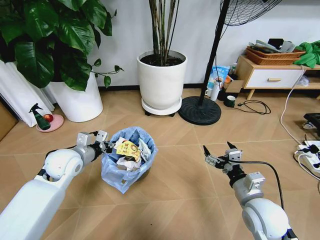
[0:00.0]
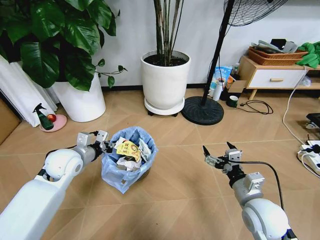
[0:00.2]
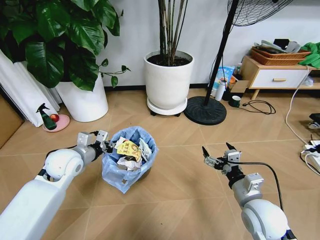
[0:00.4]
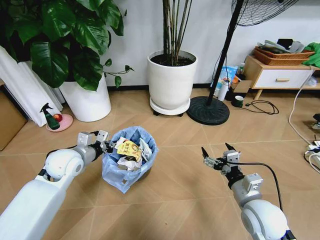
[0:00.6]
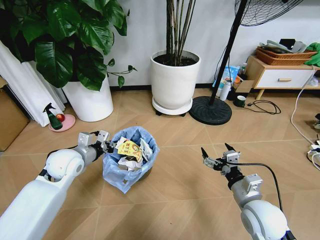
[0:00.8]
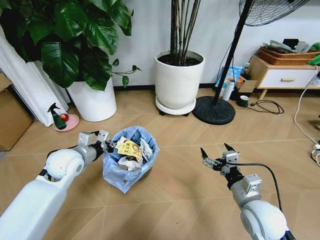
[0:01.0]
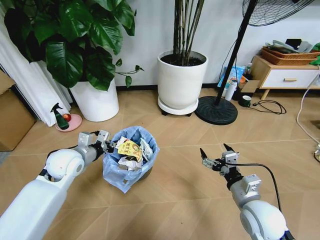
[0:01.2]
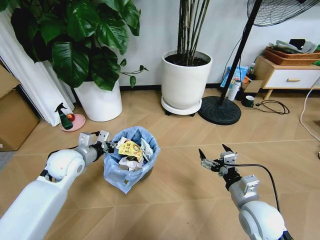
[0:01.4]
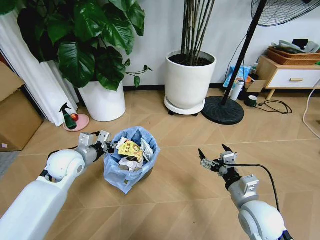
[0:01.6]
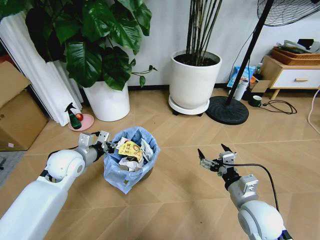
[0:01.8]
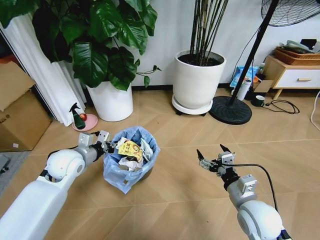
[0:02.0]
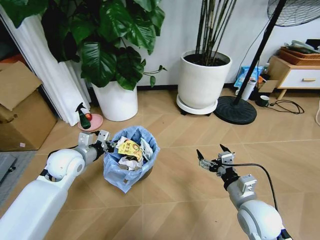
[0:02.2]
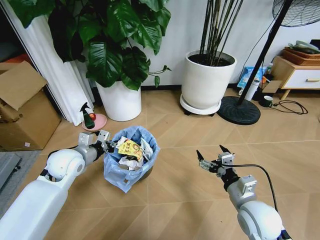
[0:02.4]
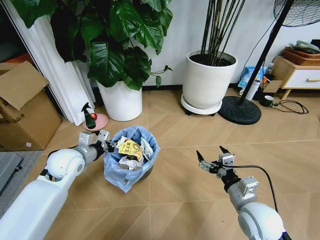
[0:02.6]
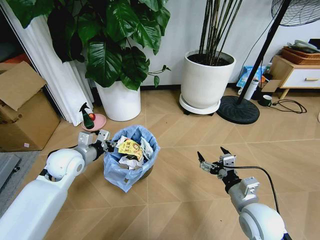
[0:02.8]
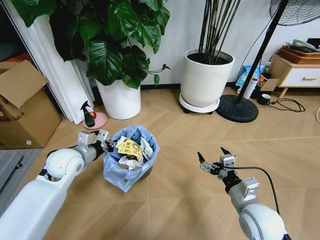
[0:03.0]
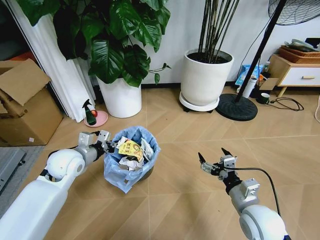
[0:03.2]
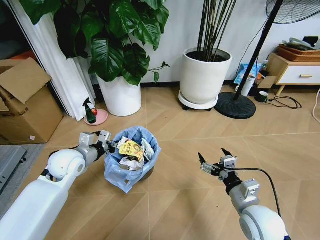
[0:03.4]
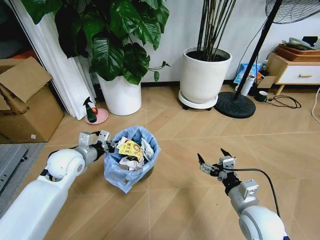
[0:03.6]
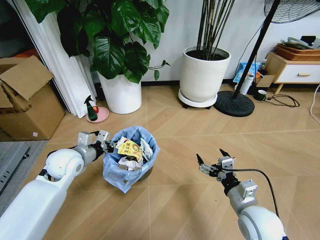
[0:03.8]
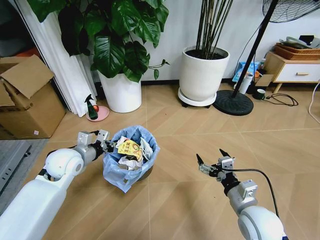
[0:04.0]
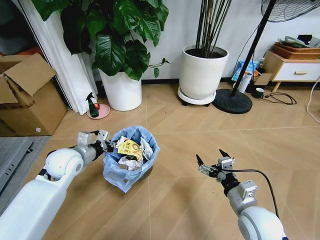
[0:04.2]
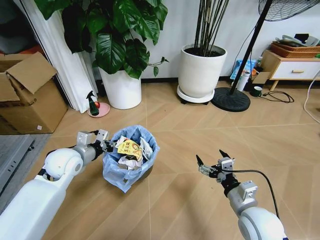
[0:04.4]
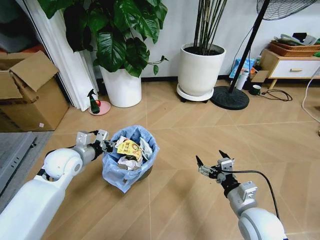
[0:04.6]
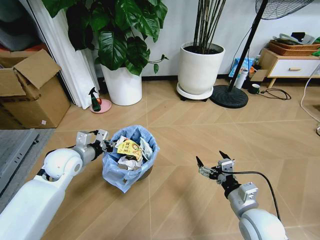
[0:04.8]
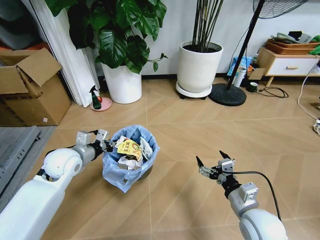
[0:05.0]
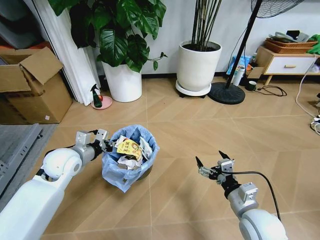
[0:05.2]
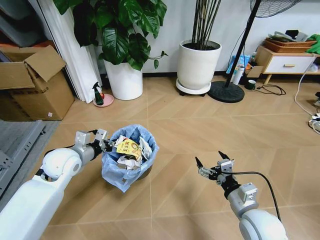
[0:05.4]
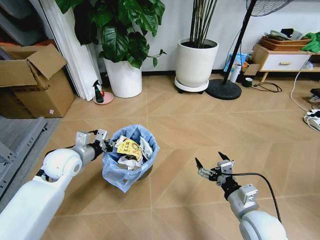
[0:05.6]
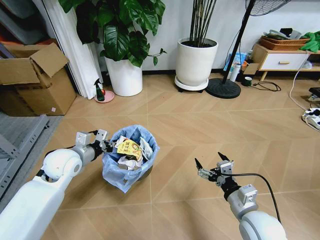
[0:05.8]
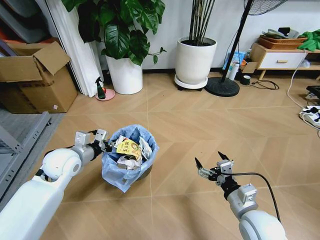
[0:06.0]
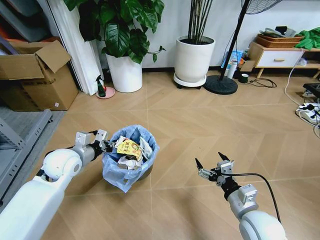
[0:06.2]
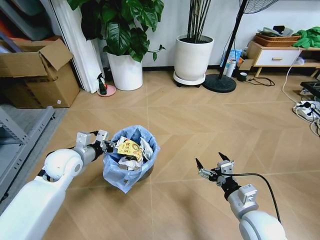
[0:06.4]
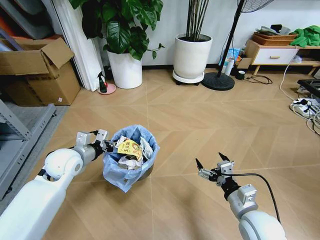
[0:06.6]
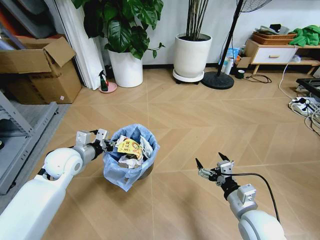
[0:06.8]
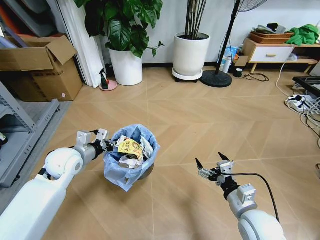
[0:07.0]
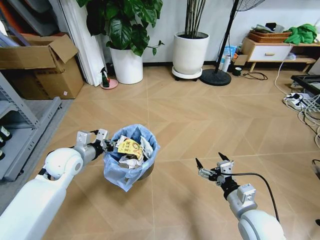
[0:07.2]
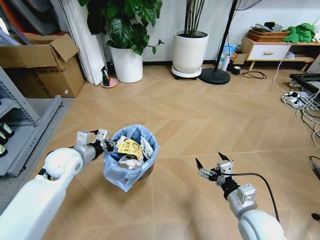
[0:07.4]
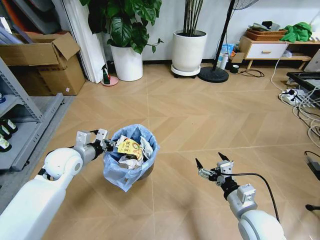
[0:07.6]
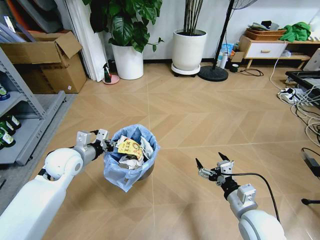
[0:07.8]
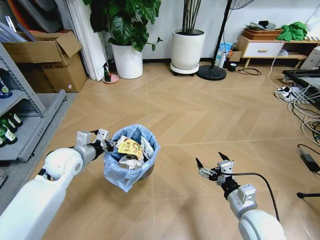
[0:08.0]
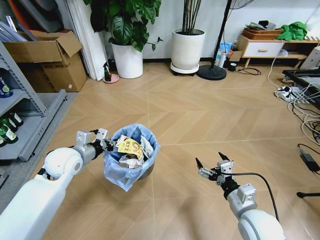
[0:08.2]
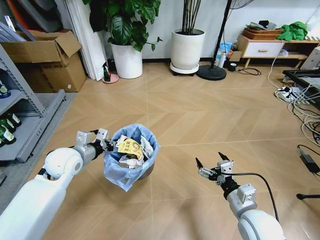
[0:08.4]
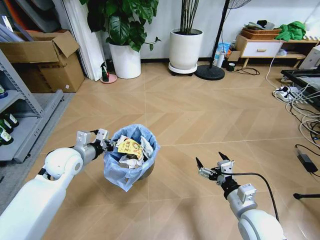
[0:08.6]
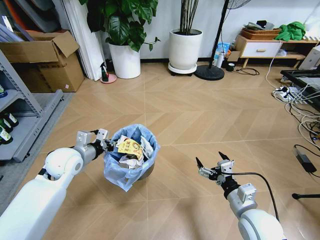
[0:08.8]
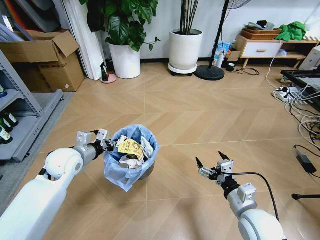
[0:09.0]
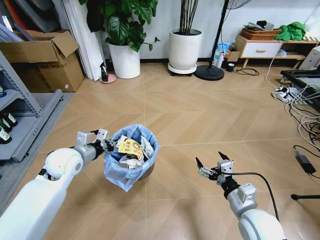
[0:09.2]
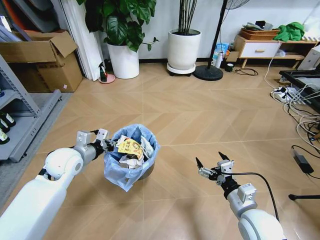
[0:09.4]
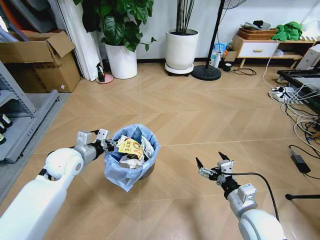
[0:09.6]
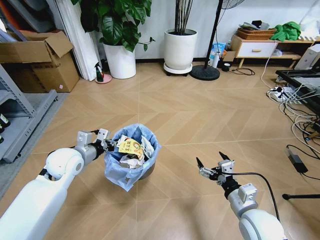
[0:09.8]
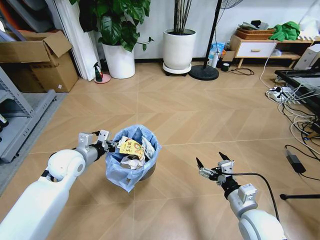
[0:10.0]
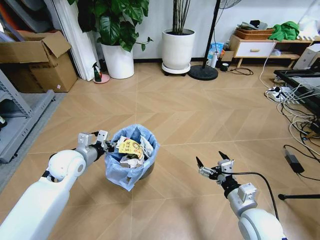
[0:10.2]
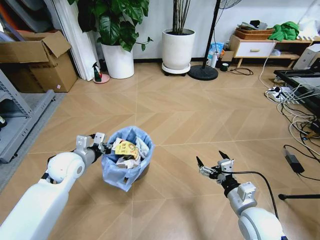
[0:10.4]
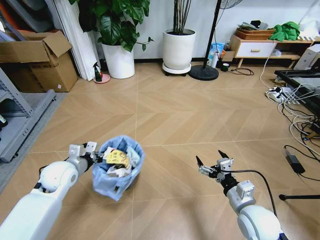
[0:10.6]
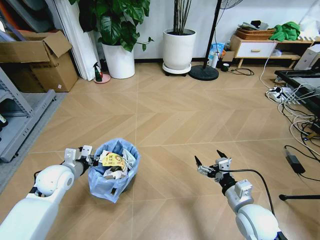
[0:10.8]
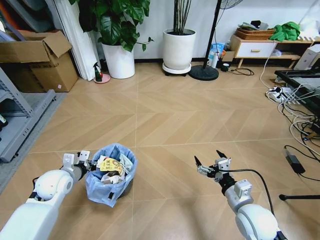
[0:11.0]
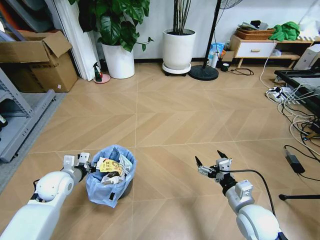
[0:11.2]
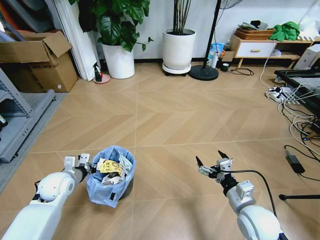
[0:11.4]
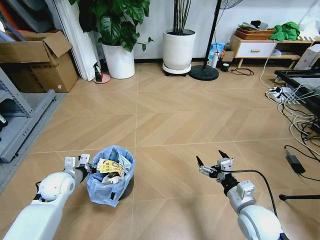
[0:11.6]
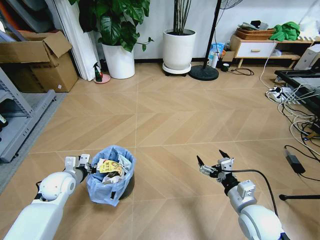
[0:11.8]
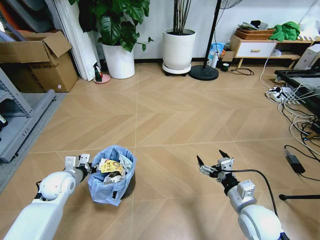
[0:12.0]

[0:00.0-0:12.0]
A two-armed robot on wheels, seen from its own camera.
Task of the whole recording: Pick up the trash bin and place the garbage on the floor into it.
0:07.6 to 0:09.0: The two grippers keep their place.
0:10.4 to 0:12.0: The left gripper moves downward and to the left, some 10 cm.

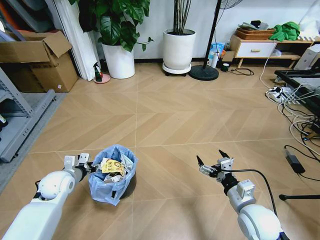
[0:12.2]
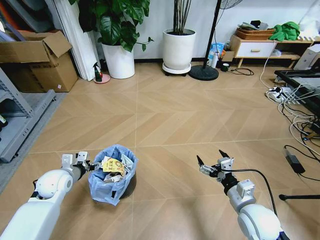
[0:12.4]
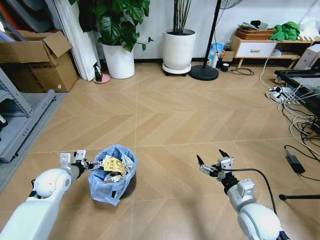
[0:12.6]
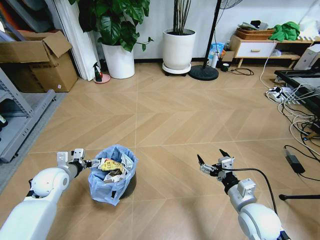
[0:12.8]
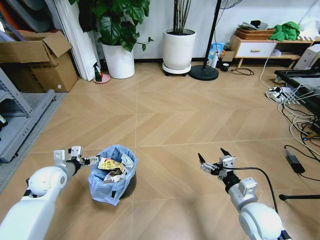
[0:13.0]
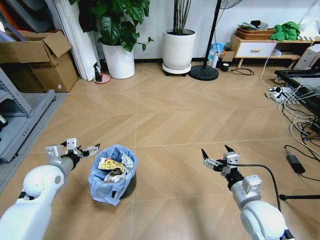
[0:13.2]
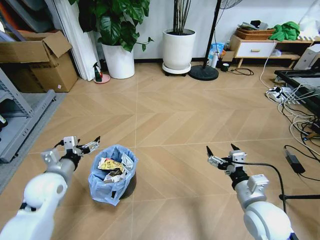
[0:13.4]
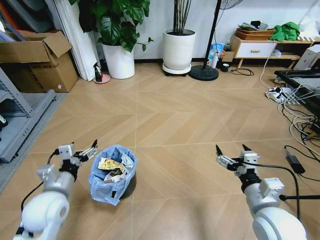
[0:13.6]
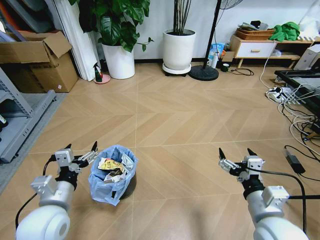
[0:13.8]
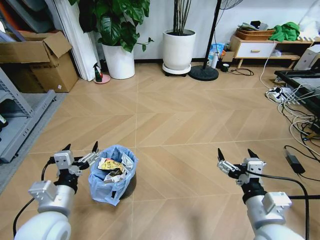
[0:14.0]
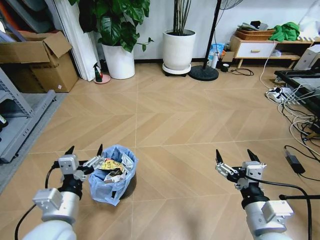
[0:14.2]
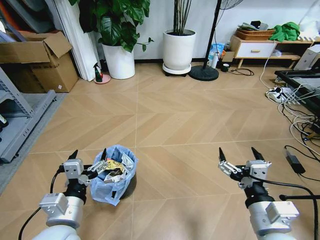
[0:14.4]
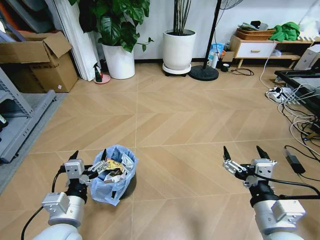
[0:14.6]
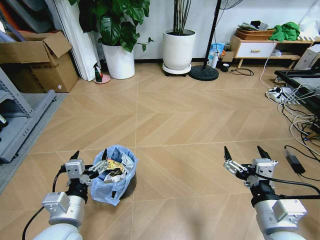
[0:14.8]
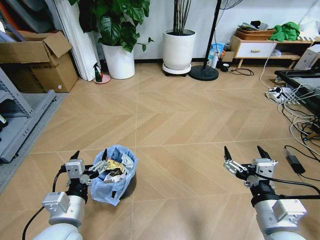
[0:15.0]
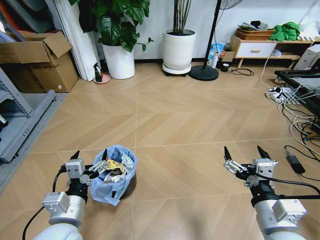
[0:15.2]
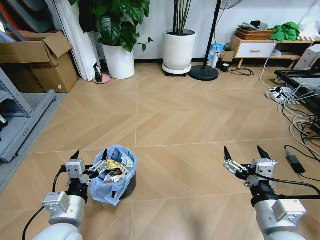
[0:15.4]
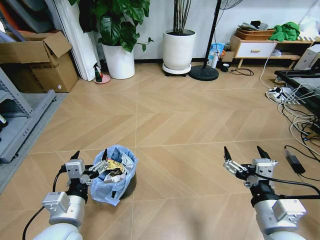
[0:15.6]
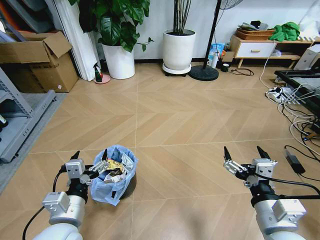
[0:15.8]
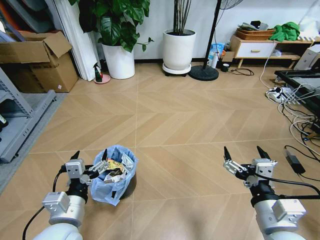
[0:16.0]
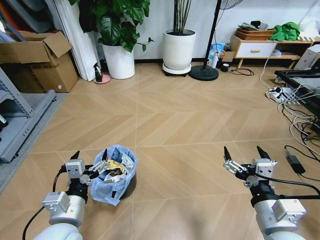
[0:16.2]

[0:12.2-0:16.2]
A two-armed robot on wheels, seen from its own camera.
Task of the whole recording: Pick up the trash bin and place the garbage on the floor into it.
0:12.2 to 0:13.6: The right gripper heads upward, covering approximately 5 cm. Meanwhile the left gripper is displaced backward and upward by about 10 cm, and opens.
0:13.6 to 0:14.8: The right gripper heads backward, covering some 5 cm. The left gripper heads backward and to the right, covering approximately 15 cm.
0:14.8 to 0:16.2: The two grippers keep their place.
